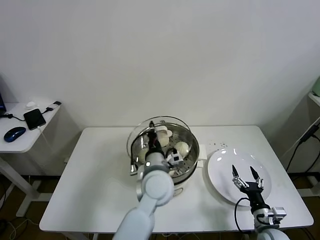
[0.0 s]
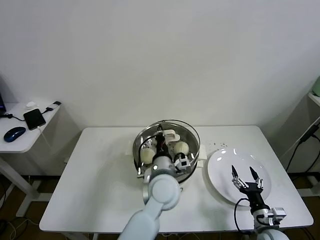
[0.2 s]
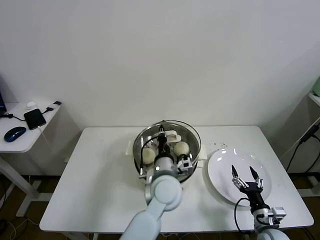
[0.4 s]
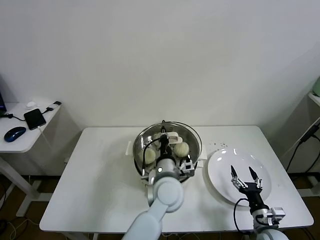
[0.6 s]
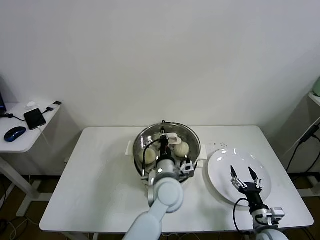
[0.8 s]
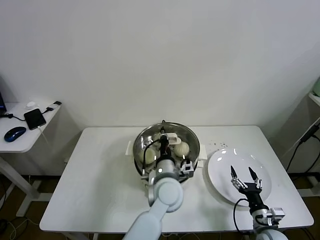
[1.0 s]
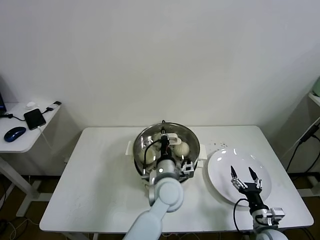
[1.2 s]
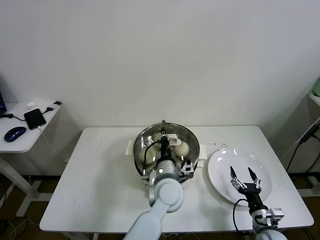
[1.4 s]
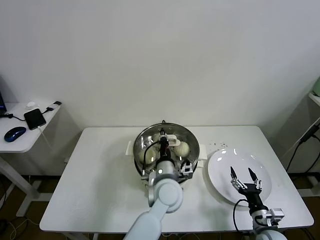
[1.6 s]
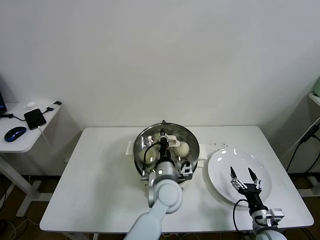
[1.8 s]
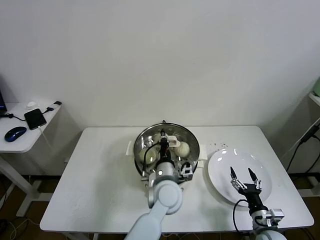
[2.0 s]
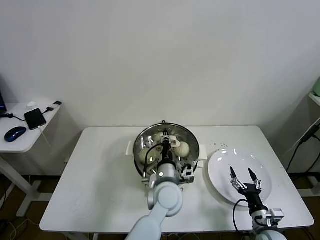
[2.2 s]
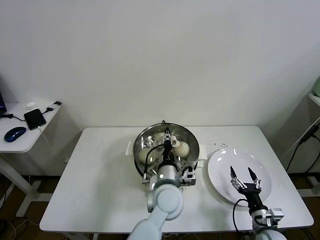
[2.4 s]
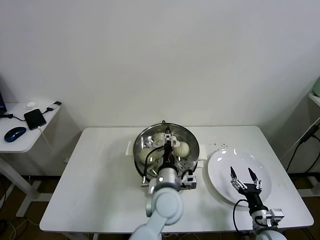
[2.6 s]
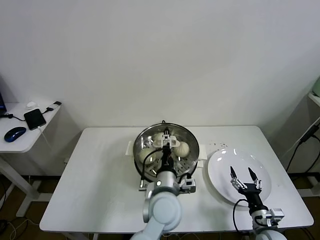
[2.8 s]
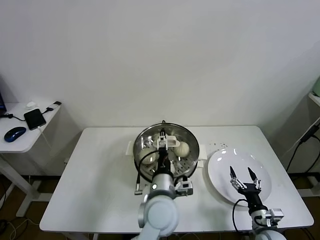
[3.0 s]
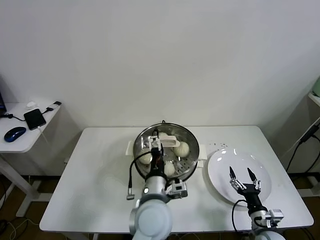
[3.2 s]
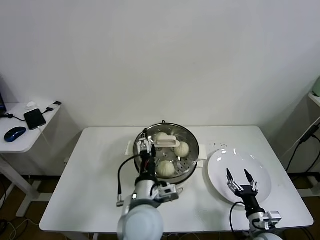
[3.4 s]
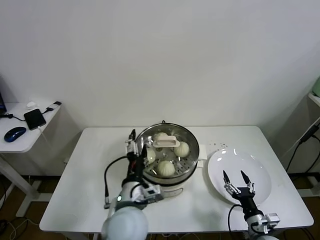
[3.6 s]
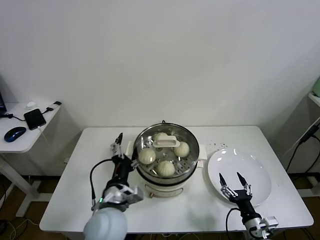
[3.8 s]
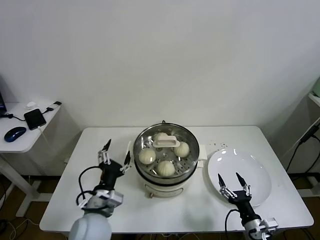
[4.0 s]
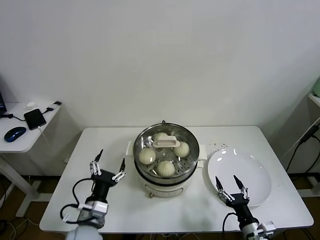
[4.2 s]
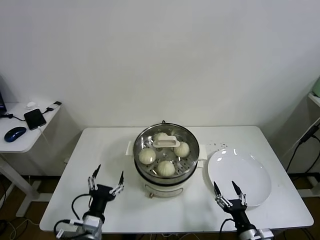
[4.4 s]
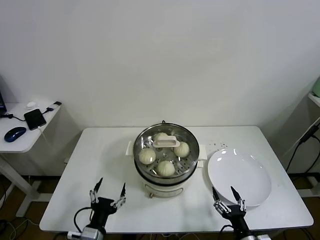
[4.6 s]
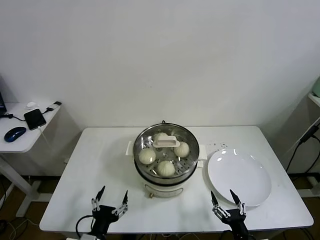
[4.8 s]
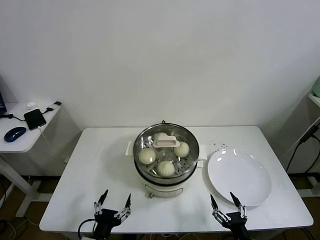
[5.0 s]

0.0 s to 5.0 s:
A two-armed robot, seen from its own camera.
Task of the whole recording: take steamed baozi put them in steamer.
Step, 0.0 to 2.4 s: Place the pot lid on the steamer with left gripper.
0.0 to 1.6 s: The left gripper changes place by about 5 cm.
1.6 to 3.4 s: The left gripper goes approximately 10 cm backward and to the left, and opens its fingers.
3.4 to 5.0 s: The right gripper shifts about 10 cm backward and to the left; the left gripper is displaced to the left, backward and downward by roughly 25 cm.
